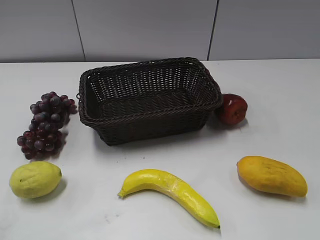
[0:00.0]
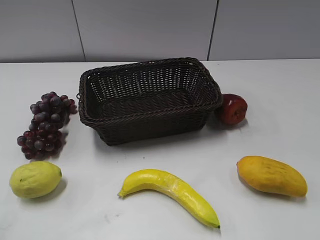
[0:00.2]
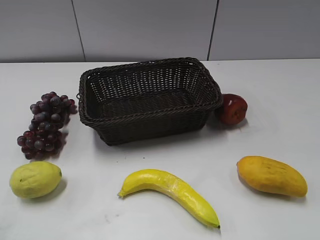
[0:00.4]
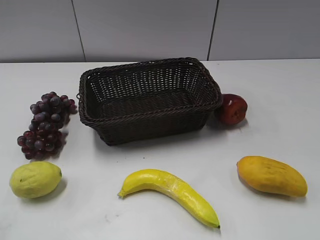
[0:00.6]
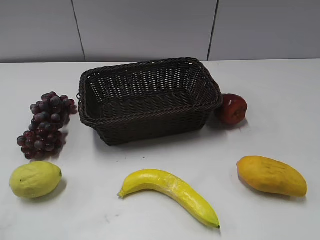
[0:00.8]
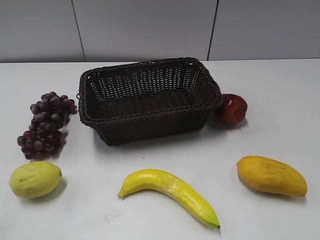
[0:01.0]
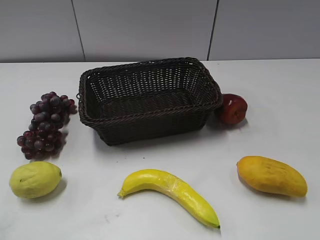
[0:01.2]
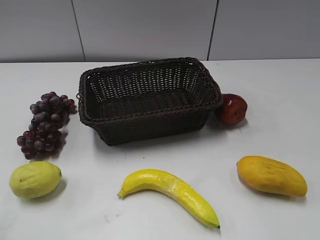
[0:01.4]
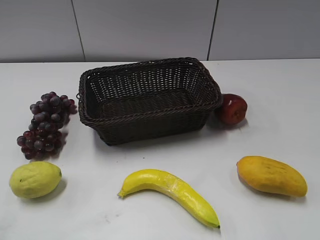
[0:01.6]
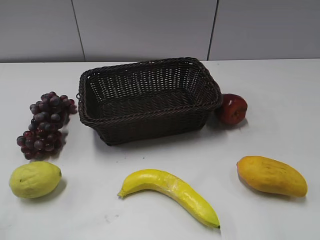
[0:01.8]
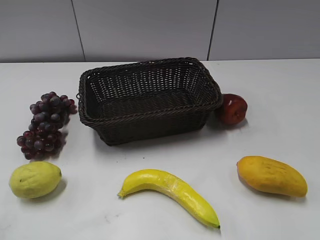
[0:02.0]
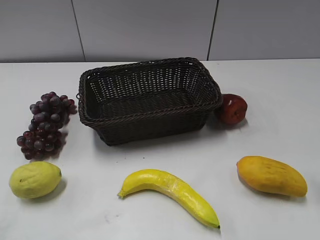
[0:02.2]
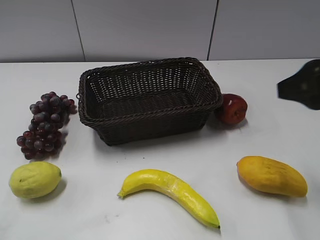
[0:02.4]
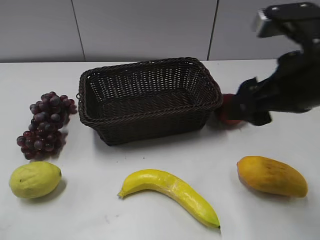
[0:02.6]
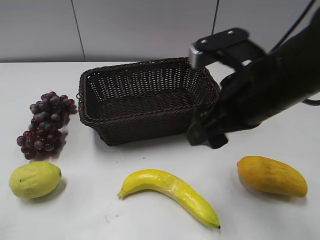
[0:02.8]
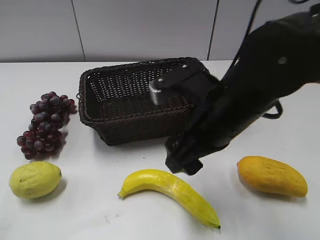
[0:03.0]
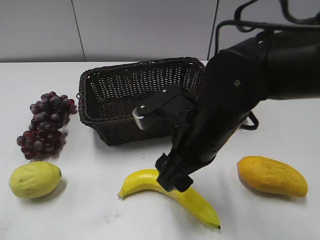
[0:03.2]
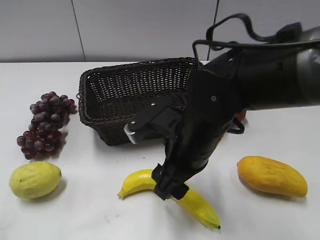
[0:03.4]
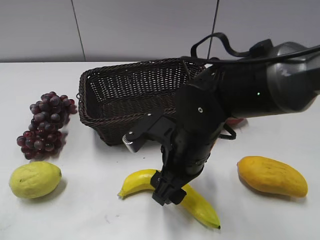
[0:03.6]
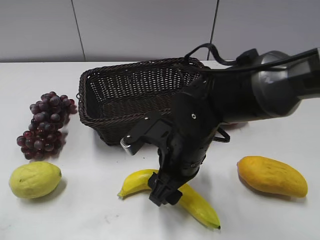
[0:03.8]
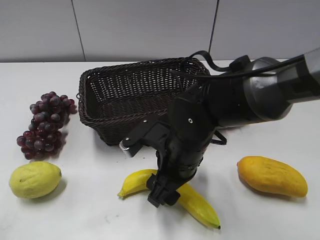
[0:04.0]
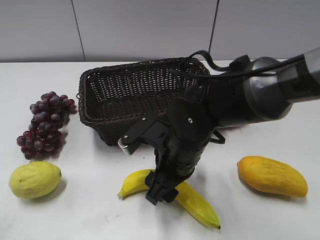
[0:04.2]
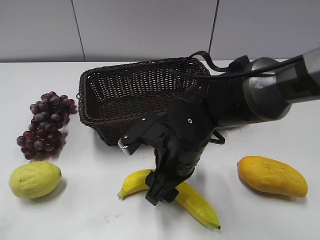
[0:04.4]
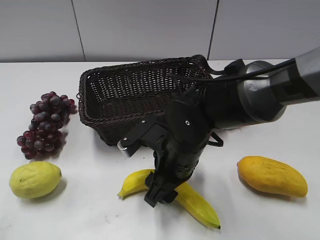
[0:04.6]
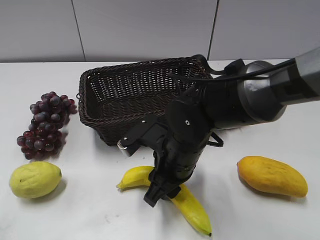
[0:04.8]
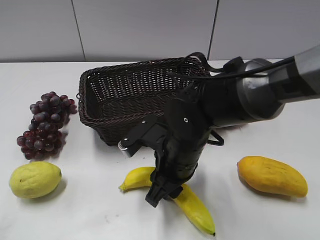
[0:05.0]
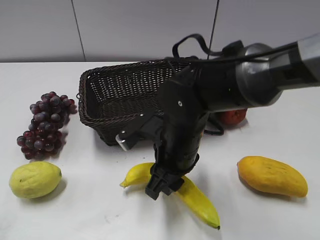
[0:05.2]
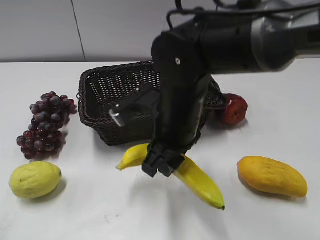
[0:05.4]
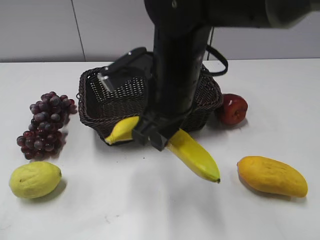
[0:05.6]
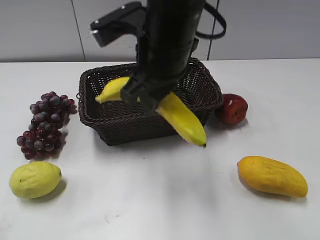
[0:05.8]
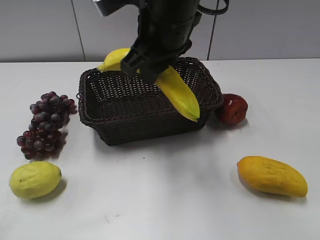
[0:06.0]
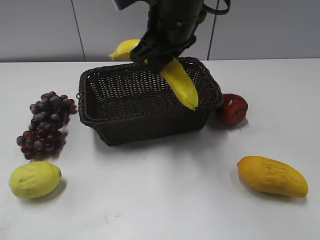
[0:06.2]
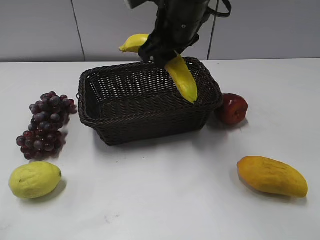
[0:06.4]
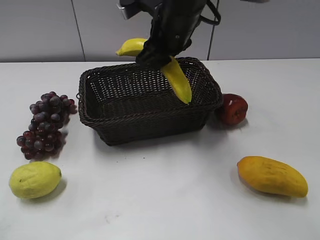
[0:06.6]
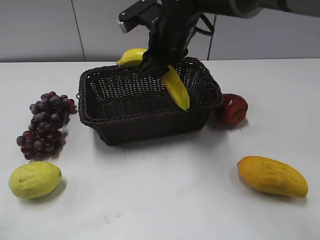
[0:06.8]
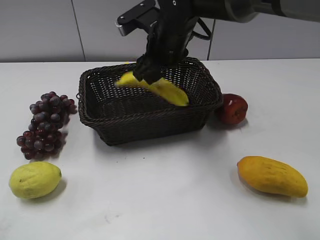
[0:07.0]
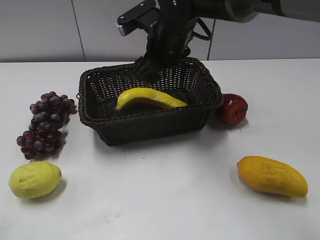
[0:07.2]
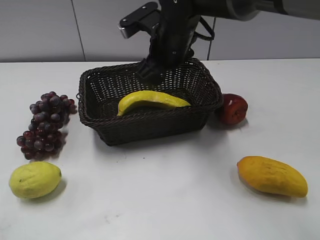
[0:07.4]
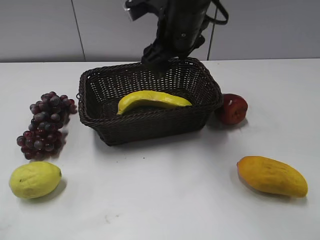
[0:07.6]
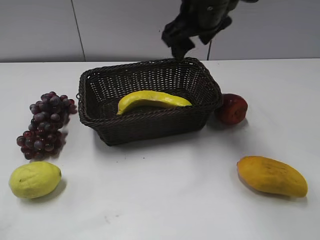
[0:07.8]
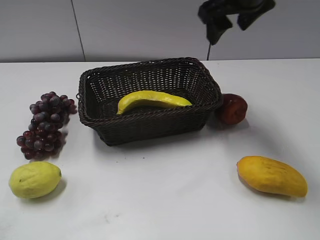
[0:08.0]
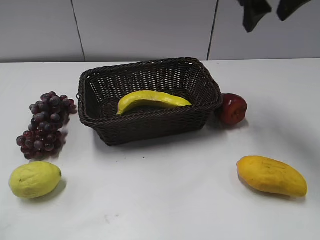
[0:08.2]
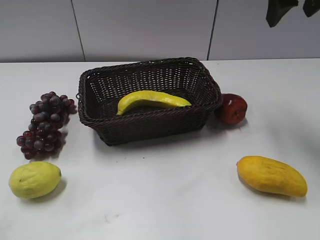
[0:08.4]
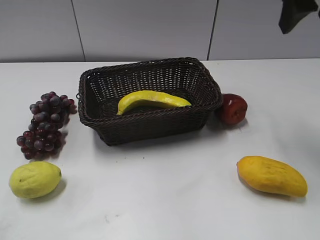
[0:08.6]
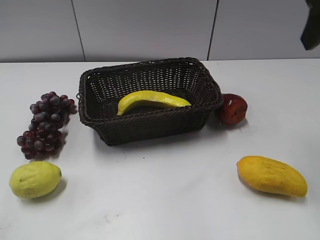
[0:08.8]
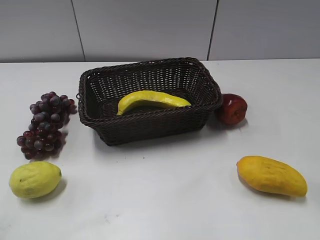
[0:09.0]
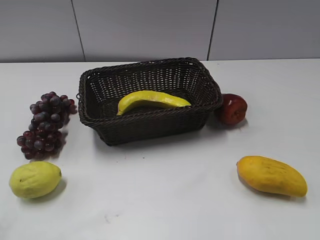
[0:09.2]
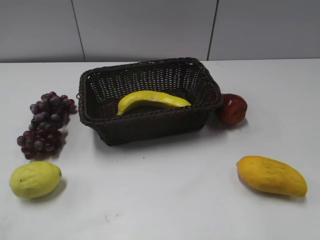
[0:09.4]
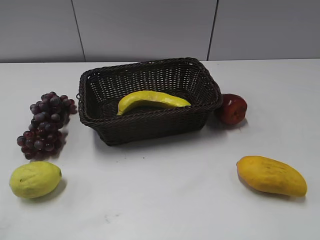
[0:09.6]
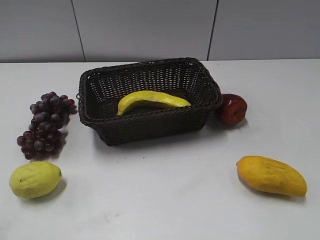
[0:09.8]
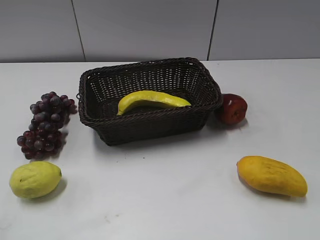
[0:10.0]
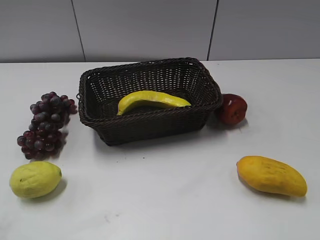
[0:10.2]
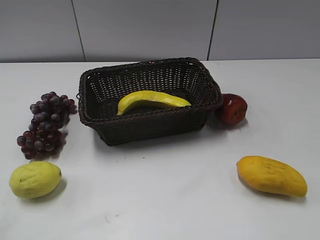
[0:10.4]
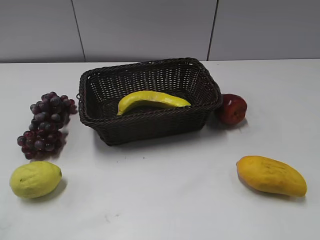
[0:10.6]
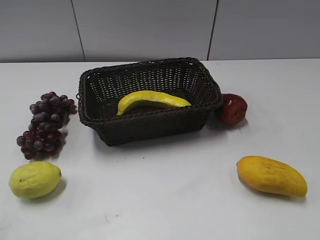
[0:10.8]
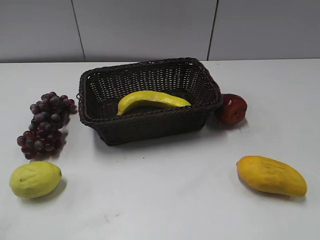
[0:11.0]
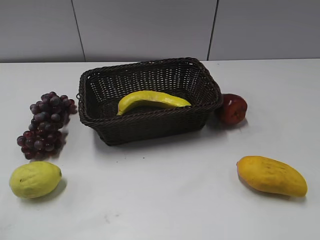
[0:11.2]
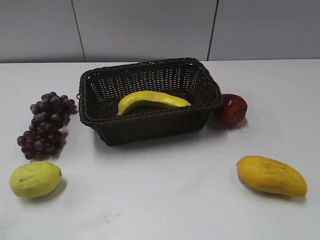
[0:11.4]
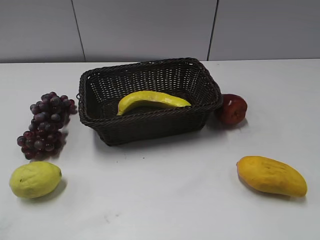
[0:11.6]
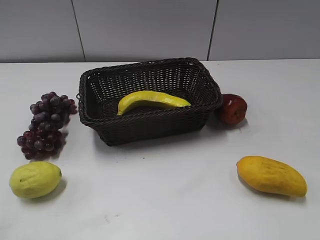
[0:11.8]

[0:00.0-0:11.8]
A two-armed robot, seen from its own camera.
Step, 0:02.4 to 0:04.8: Grasp the banana with right gripper.
Step, 0:05.0 to 0:07.0: Place the banana in the basket with right gripper.
0:01.4 to 0:03.0: The right gripper travels forward and to the left by some 30 cm.
0:03.0 to 0:04.4: The right gripper goes about 10 cm downward and to the left.
0:04.4 to 0:06.0: The right gripper goes approximately 20 cm upward, and closes.
0:06.0 to 0:07.4: The right gripper heads forward and downward, covering some 10 cm, and opens.
0:07.4 to 0:08.8: The right gripper travels to the right, upward and backward by some 30 cm.
0:08.8 to 0:10.4: The right gripper moves backward and downward, some 25 cm.

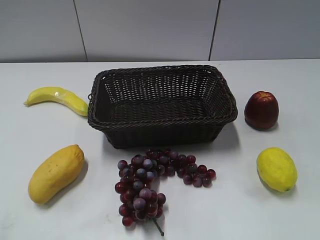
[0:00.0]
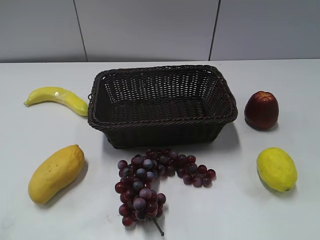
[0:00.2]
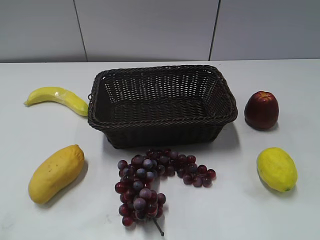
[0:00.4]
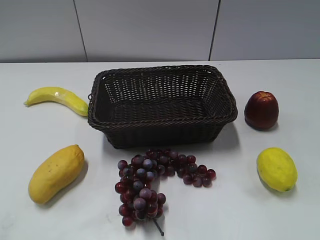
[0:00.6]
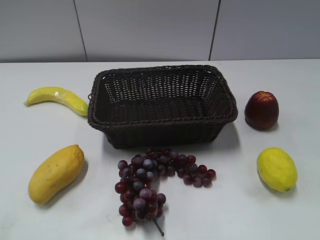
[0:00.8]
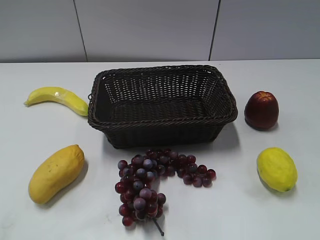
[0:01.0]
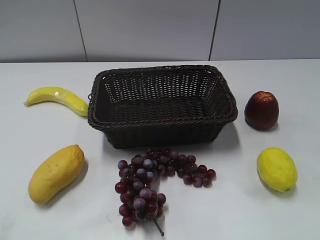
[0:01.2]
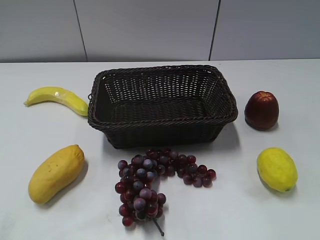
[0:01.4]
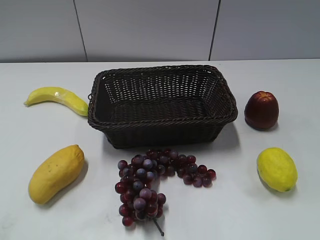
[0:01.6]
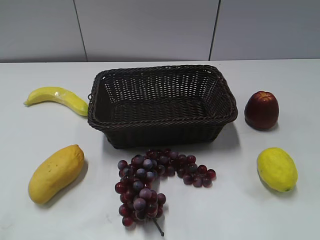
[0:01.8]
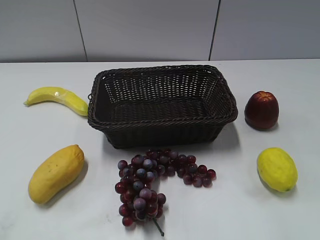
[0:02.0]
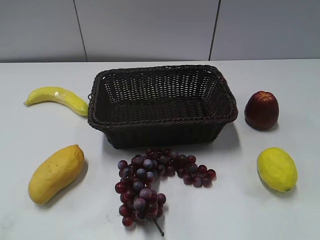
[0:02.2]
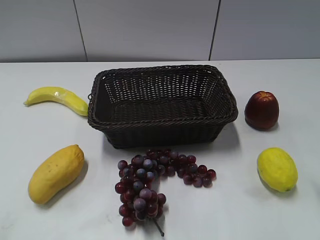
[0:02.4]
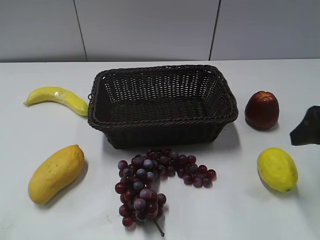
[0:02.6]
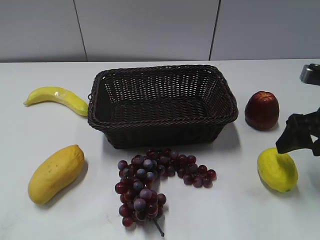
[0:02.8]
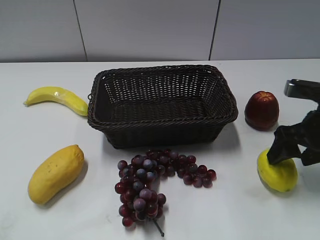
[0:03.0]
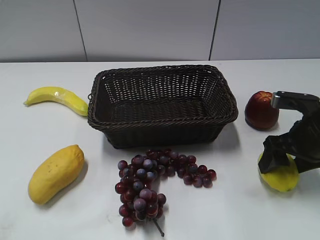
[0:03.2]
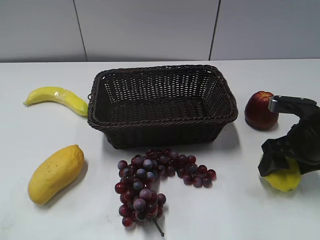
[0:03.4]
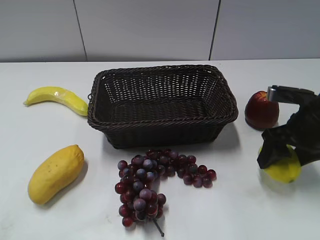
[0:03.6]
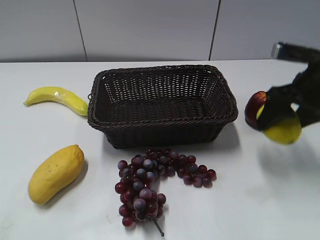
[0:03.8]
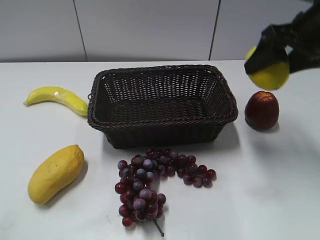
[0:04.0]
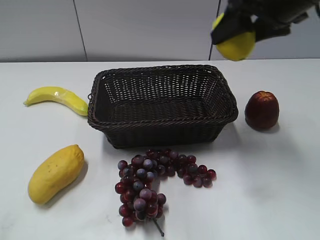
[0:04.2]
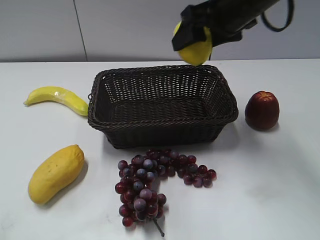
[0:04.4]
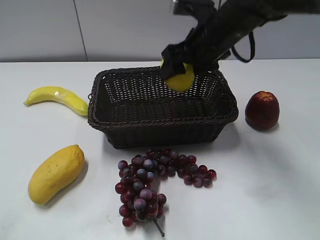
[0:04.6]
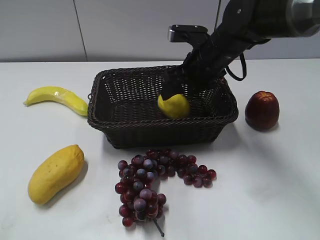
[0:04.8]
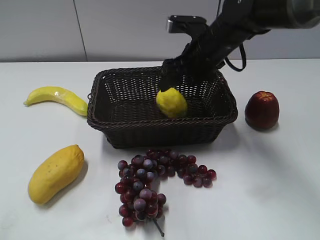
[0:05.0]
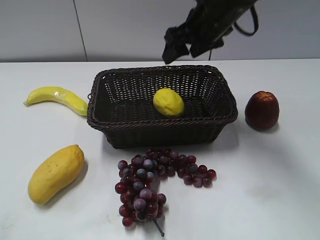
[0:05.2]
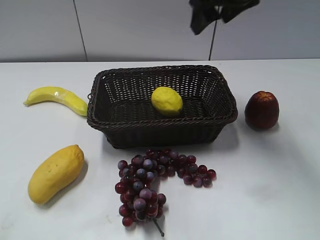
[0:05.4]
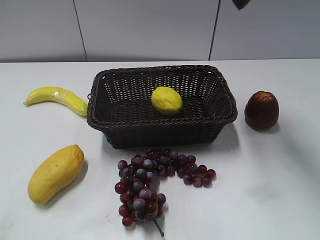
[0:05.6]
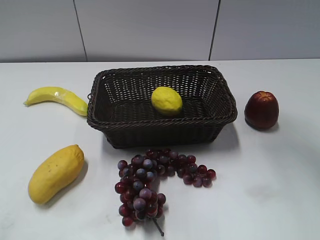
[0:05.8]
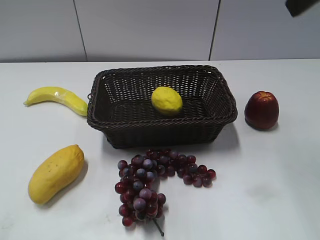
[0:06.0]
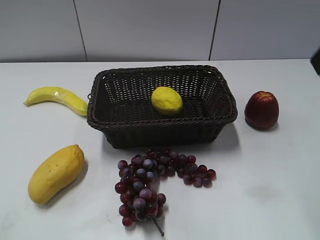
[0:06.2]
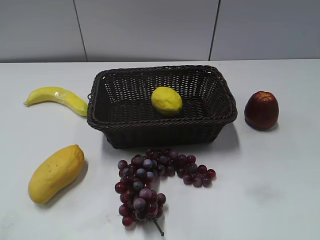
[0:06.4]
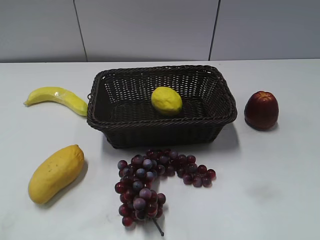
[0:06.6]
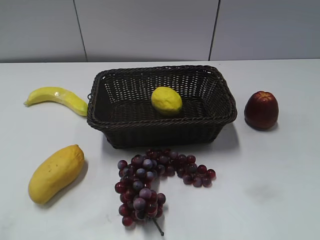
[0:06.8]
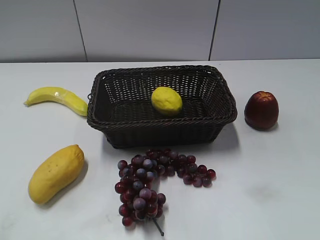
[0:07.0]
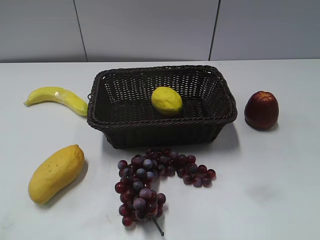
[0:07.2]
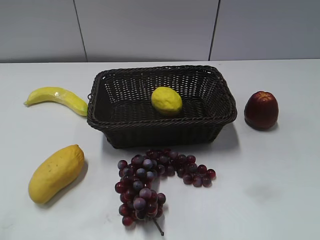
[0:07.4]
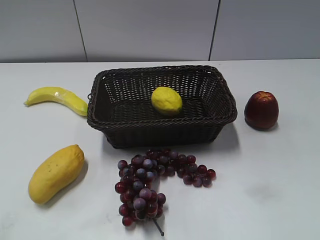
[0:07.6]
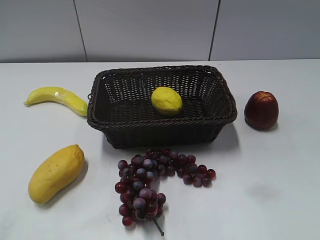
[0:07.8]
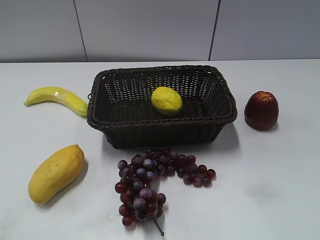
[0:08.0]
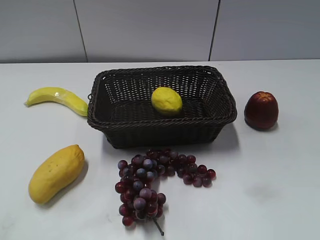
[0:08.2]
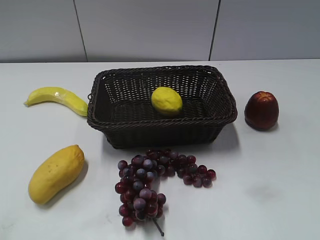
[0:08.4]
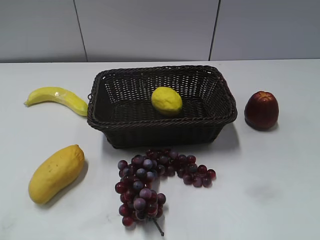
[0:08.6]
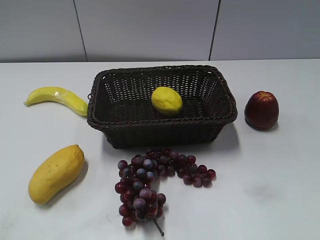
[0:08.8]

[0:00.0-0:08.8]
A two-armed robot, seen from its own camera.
Step, 0:02.6 to 0:03.2: Grasp the lemon with right gripper.
Step, 0:03.6 to 0:05.0: Place the lemon in the basket with right gripper.
0:01.4 to 0:03.0: The right gripper is displaced forward and downward by approximately 30 cm, and opens its fingers.
0:03.0 to 0:04.4: The right gripper heads to the left, upward and forward, covering about 20 cm, and closes its fingers.
0:04.4 to 0:05.8: The right gripper is displaced upward, to the right and backward by approximately 15 cm, and opens, then closes once more.
0:05.8 to 0:07.4: The right gripper moves backward, downward and to the right, roughly 35 cm.

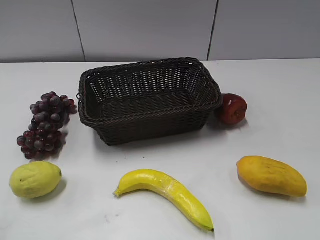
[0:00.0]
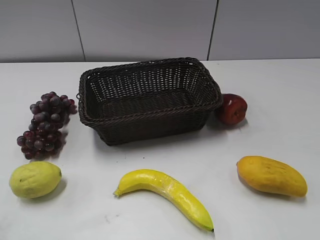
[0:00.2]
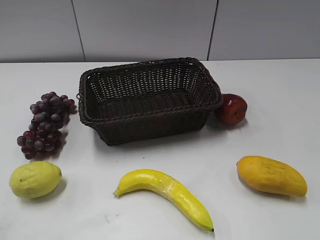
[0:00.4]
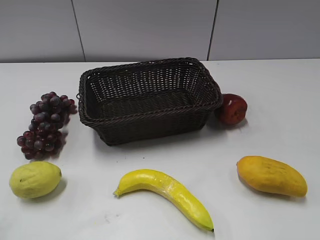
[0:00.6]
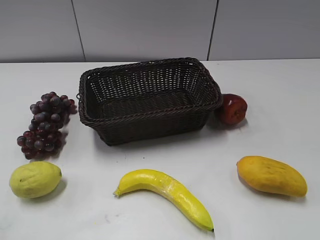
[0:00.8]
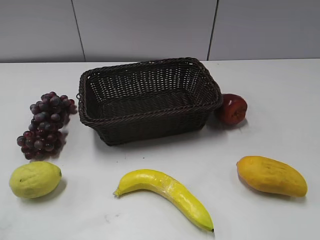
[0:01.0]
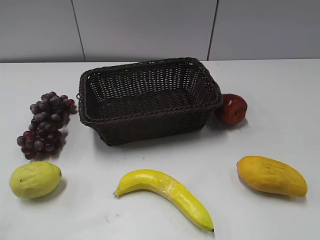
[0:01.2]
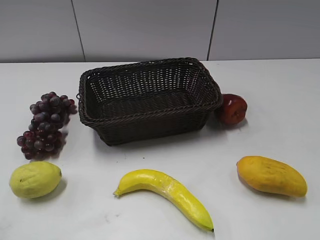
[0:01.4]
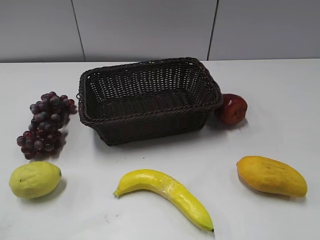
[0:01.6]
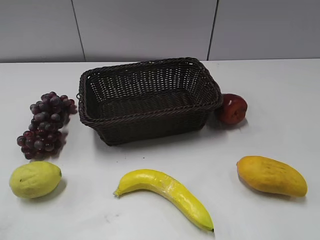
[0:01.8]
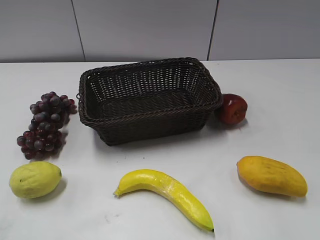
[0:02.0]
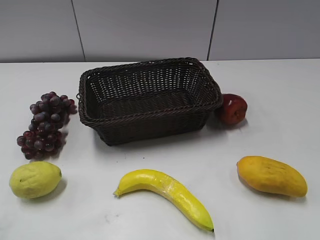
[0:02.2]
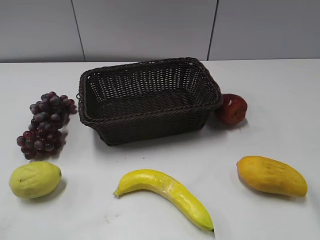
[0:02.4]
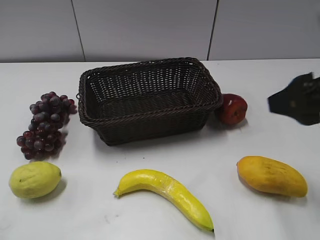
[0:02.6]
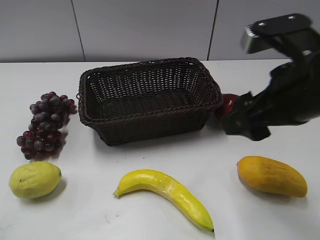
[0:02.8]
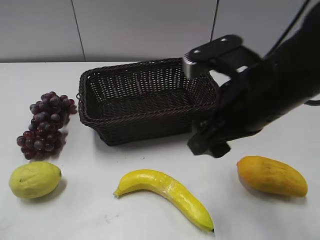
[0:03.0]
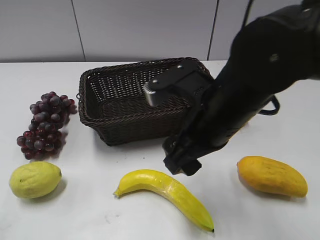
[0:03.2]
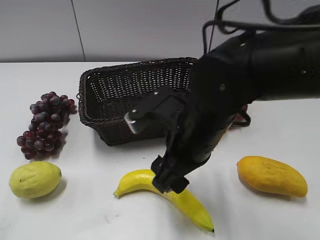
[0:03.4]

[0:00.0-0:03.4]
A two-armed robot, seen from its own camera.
0:01.6 to 0:03.4: The right gripper heads to the left, forward and downward, covering about 35 cm.
